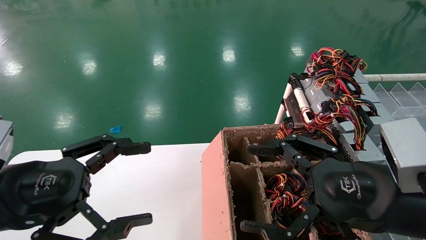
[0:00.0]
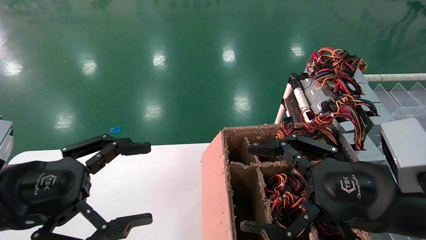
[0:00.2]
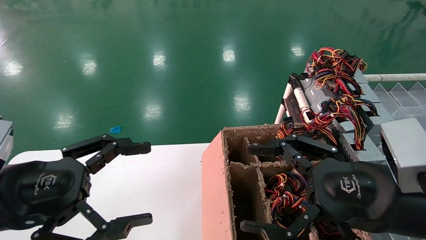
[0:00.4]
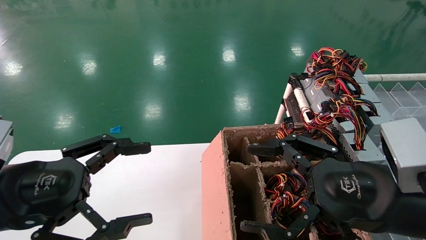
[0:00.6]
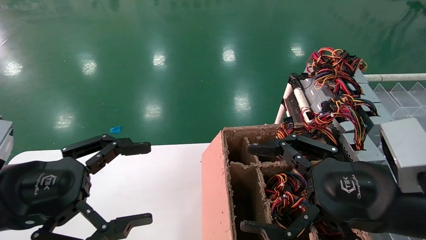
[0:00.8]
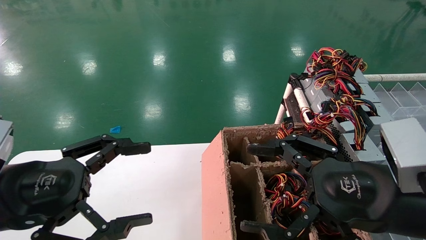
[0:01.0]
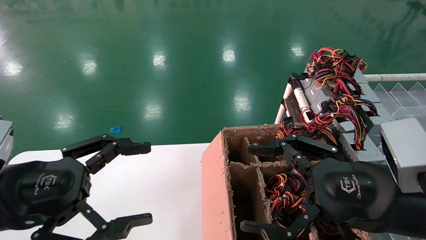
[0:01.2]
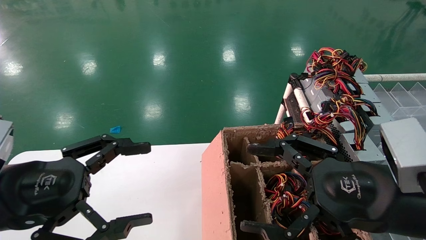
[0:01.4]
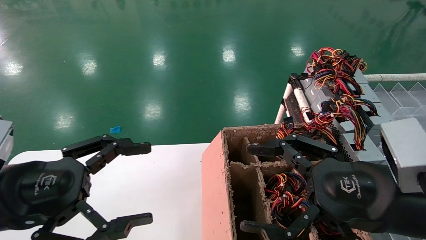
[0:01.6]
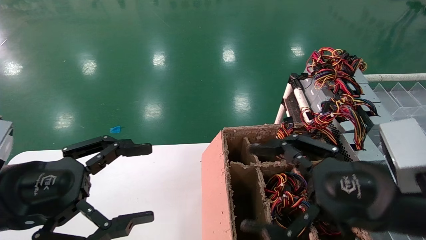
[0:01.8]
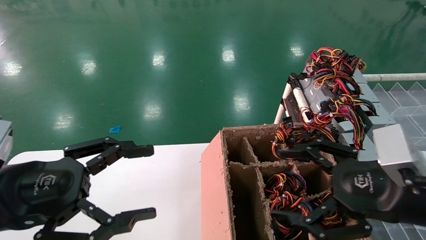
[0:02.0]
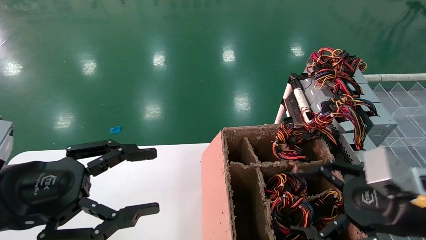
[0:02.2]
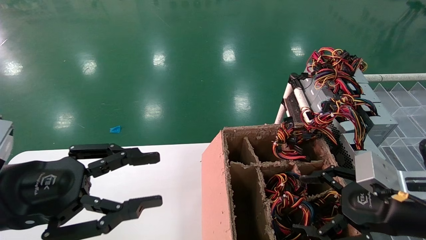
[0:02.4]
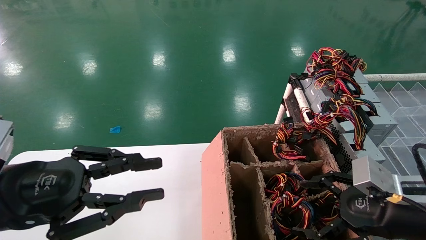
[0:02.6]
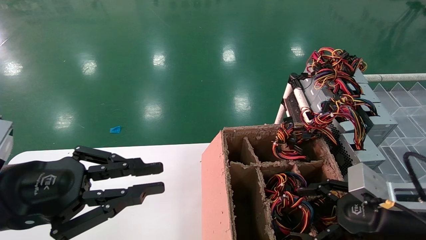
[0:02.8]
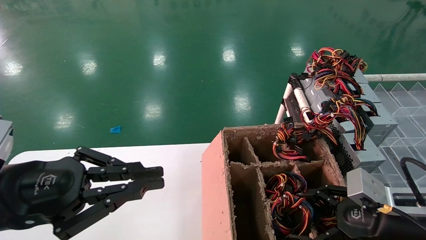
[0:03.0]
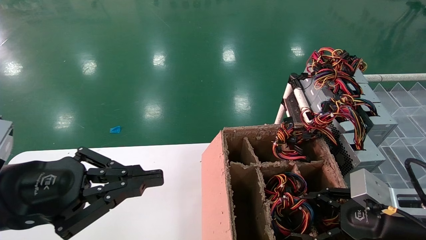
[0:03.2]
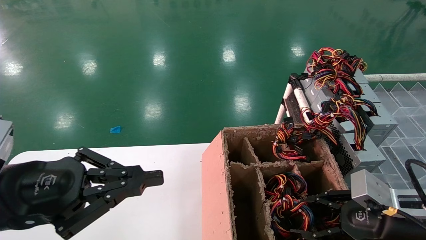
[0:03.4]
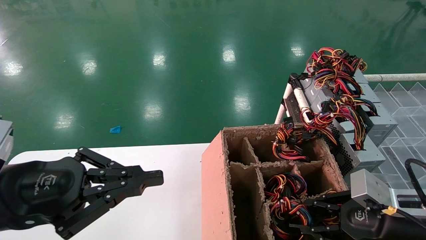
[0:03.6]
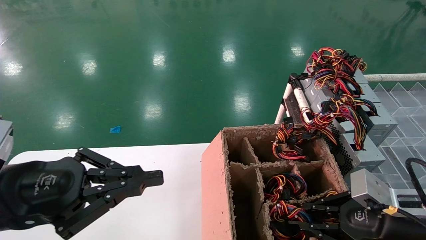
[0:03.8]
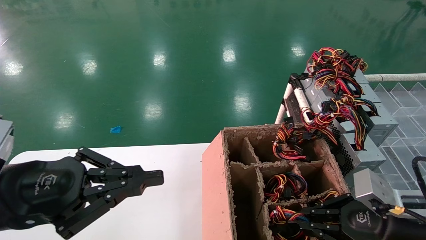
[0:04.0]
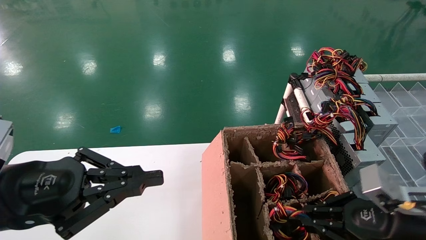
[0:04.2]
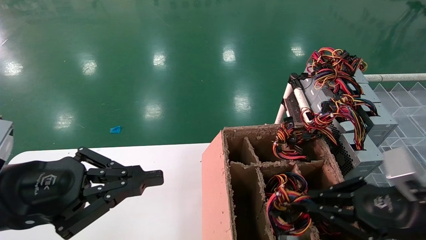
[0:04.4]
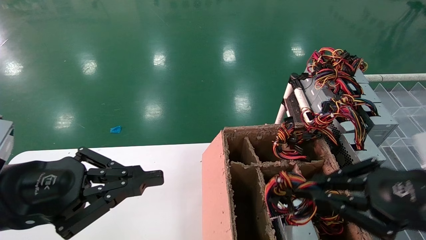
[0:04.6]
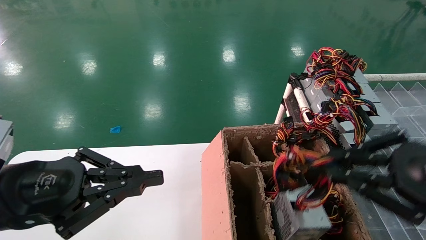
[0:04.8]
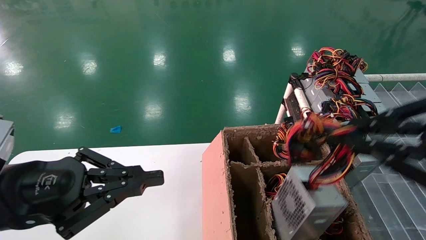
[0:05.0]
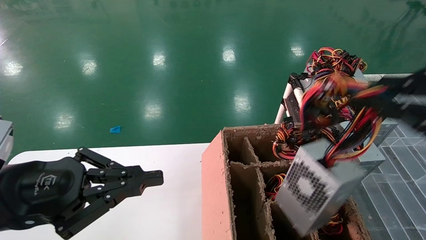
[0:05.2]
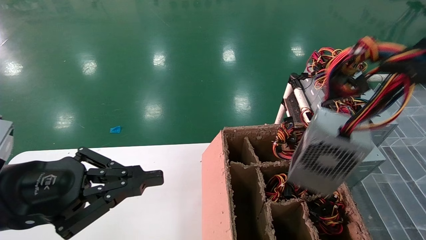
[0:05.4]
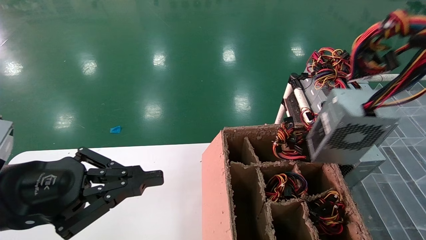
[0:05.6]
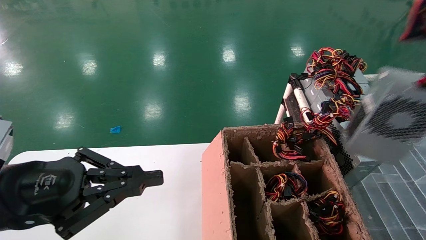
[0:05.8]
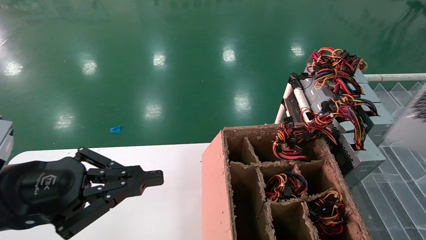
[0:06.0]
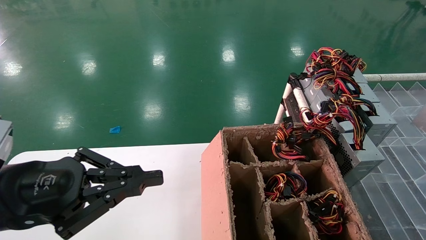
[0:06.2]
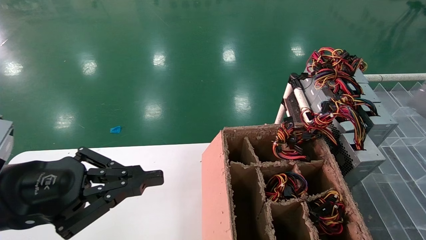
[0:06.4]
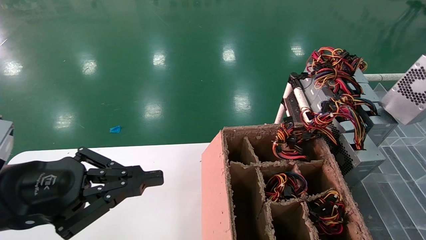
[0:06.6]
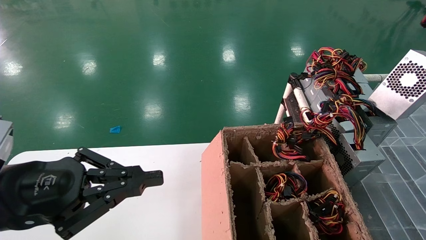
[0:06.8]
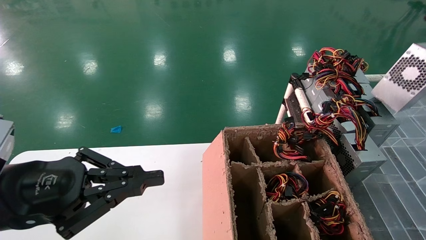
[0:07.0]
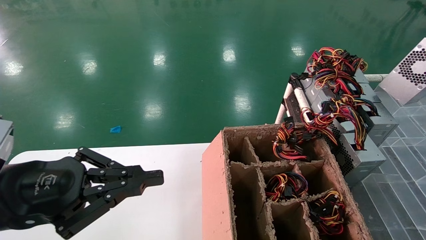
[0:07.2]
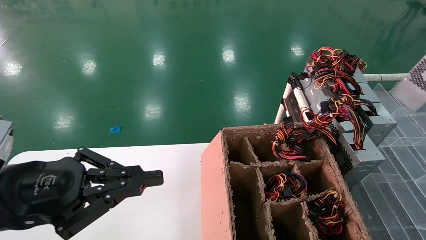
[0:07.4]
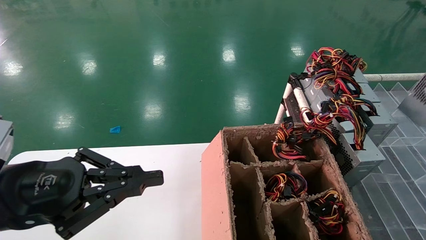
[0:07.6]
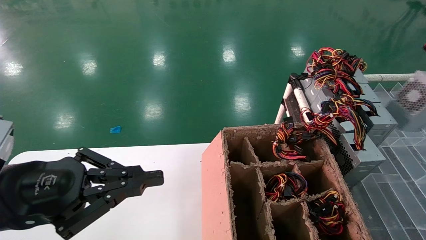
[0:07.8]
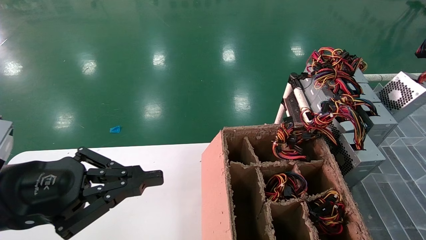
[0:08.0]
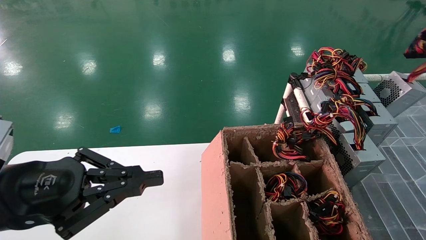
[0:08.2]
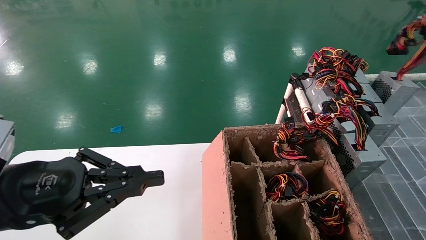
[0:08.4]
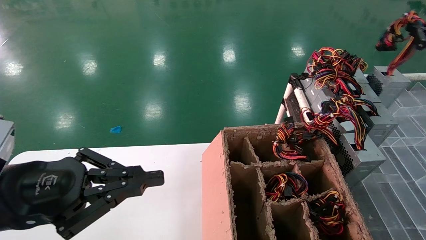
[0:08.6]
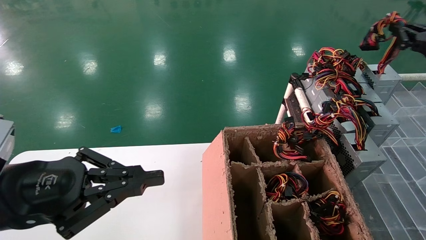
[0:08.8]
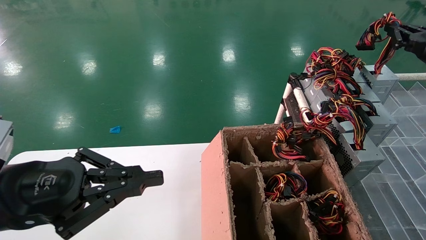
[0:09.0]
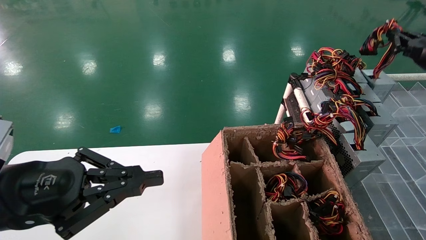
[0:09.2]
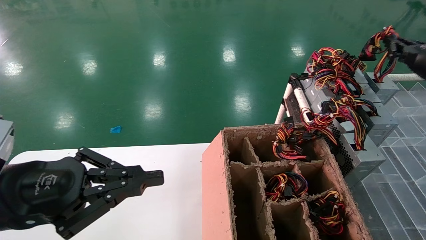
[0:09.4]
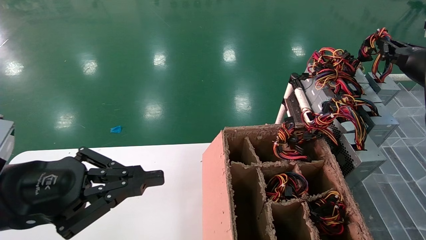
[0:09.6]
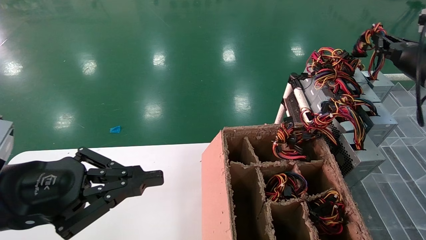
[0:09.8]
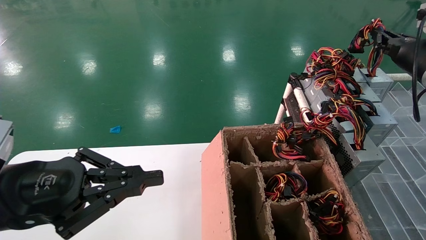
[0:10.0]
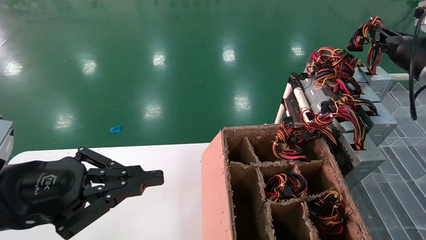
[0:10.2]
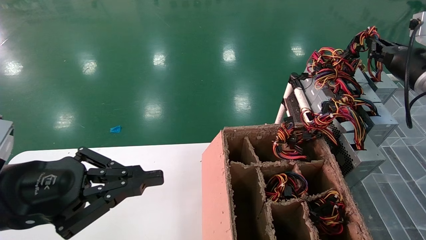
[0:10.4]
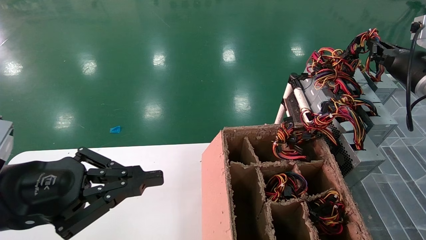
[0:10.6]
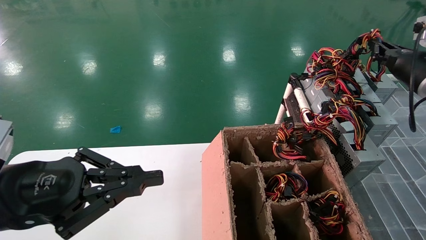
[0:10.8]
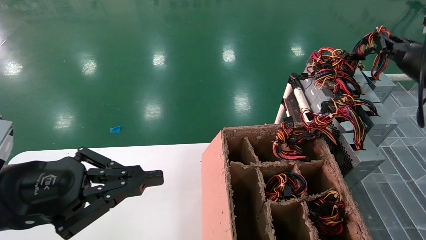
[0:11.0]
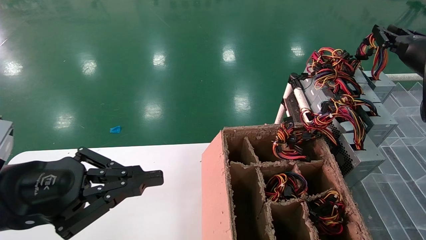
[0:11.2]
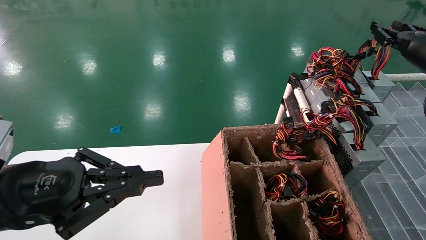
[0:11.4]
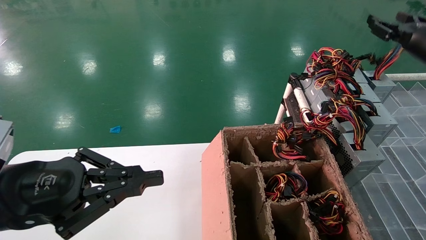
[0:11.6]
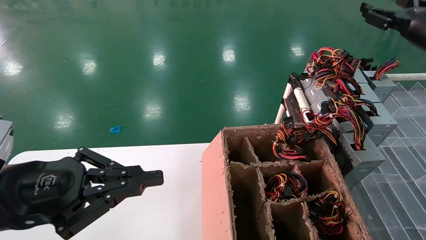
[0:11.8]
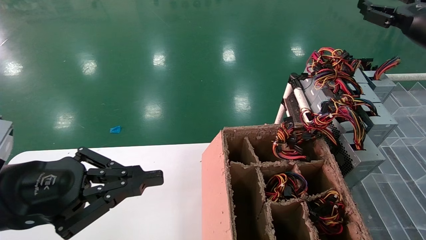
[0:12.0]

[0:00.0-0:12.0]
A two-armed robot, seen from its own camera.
Step, 0:02.0 to 0:04.0: Grab the main unit power supply from the containment box.
Step, 0:04.2 to 0:11.6: Place the main unit power supply in the designated area.
0:00.0 to 0:01.6: The two grippers keep their place.
0:01.6 to 0:03.0: The left gripper closes up, while the right gripper moves to the right and downward, roughly 10 cm.
0:03.0 to 0:04.4: The right gripper ends up roughly 5 cm from where it was, and closes up.
0:04.4 to 0:06.0: The right gripper goes about 30 cm upward, to the right and backward.
0:06.0 to 0:07.6: The right gripper travels forward and to the right by roughly 20 cm.
0:07.6 to 0:09.0: The right gripper goes some 15 cm forward and to the left.
0:09.0 to 0:10.4: The right gripper shifts by about 5 cm.
0:10.4 to 0:12.0: The right gripper goes roughly 5 cm upward, and opens up.

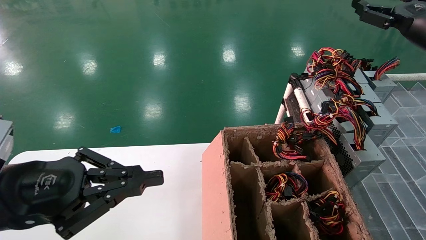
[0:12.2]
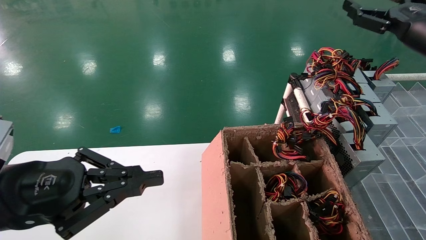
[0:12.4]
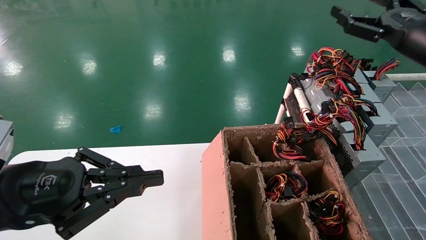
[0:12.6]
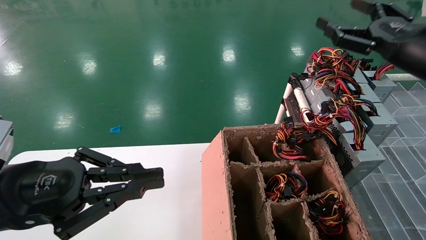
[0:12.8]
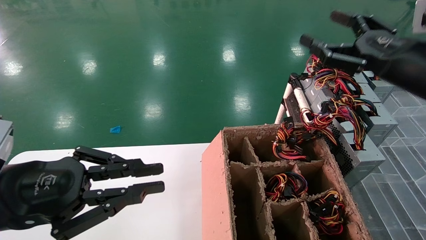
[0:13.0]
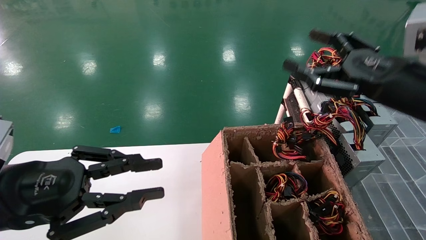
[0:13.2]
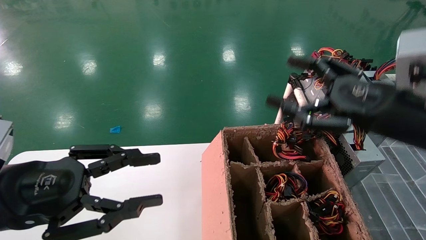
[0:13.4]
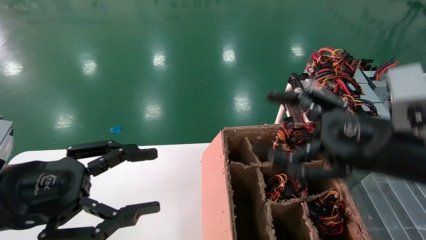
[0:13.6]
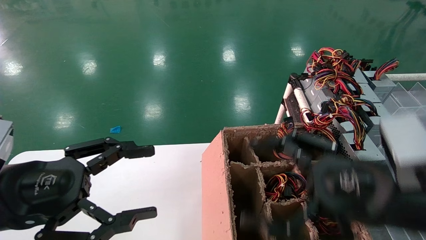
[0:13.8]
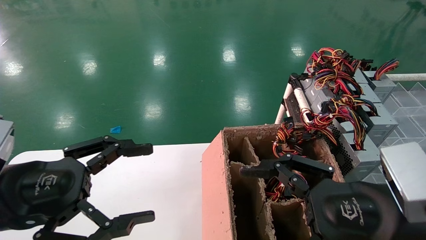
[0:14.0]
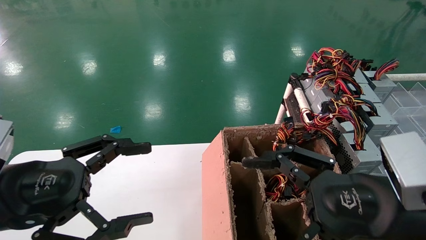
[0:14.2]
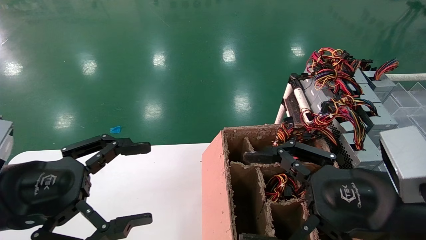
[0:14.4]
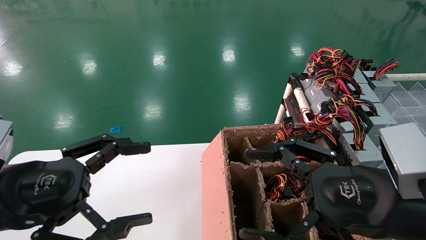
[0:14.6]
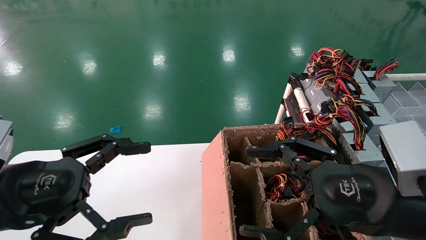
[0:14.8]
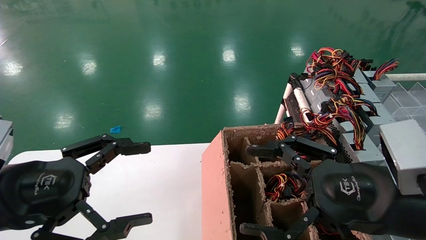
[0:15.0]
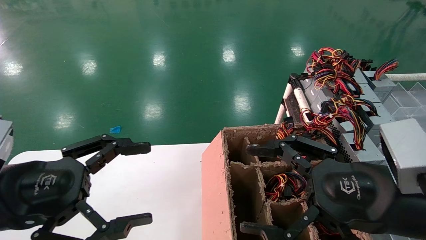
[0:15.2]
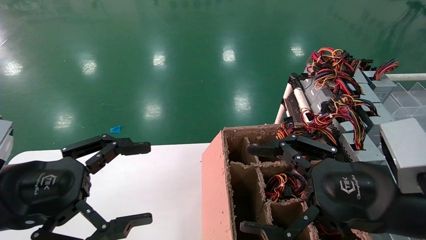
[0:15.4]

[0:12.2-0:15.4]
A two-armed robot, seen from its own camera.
0:12.2 to 0:13.8: The right gripper is displaced backward, to the left and downward by about 30 cm; the left gripper opens up.
0:13.8 to 0:15.4: There are only small adjustments of the grippers.
